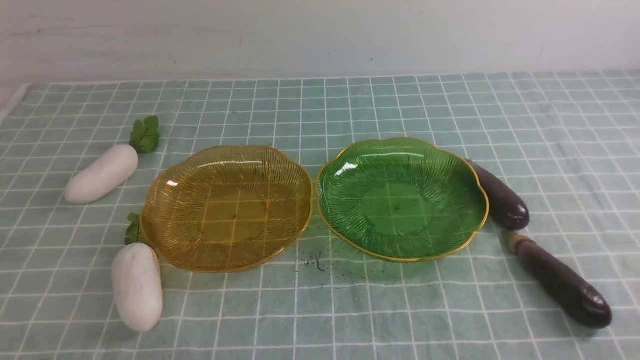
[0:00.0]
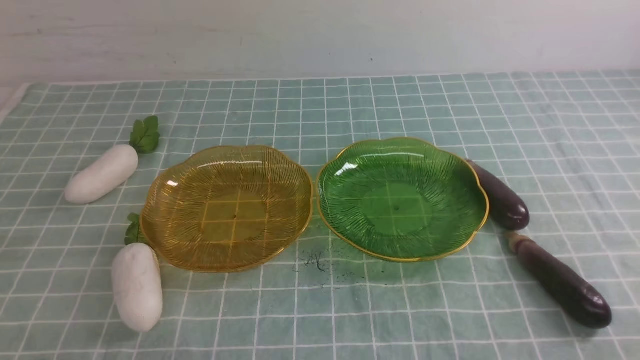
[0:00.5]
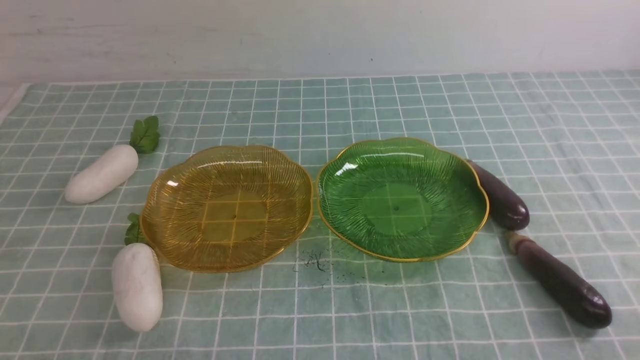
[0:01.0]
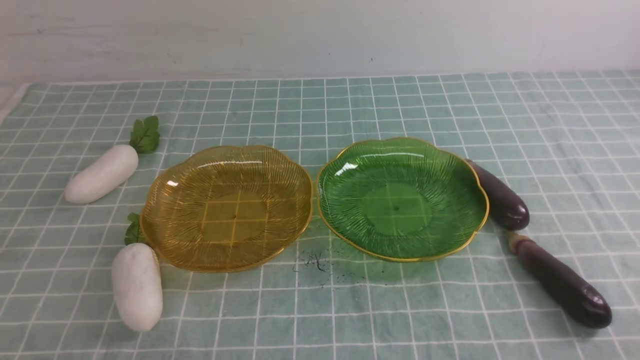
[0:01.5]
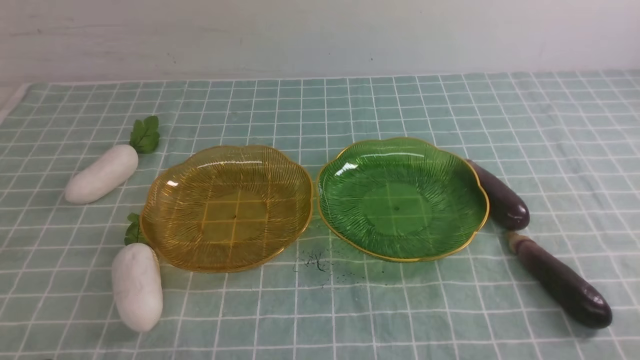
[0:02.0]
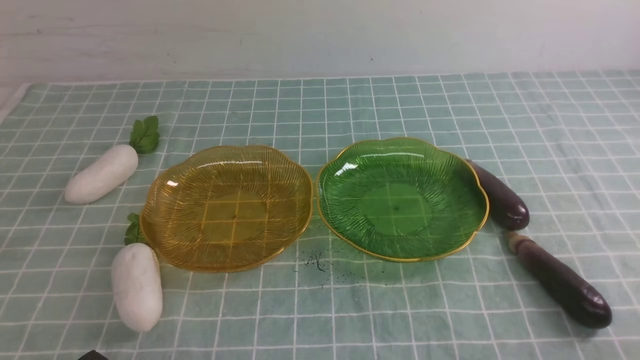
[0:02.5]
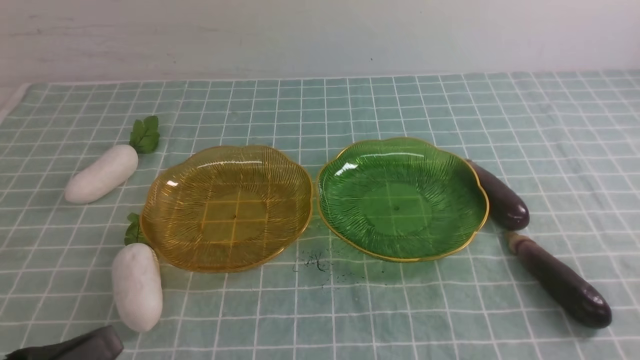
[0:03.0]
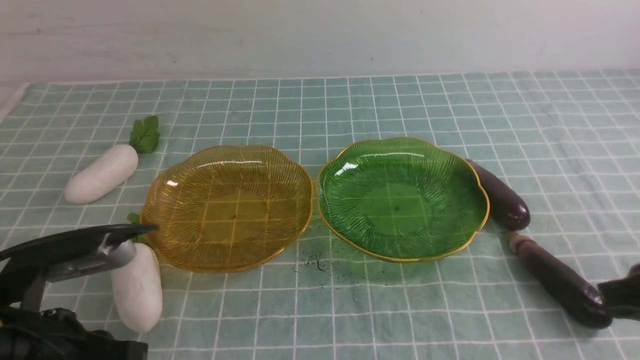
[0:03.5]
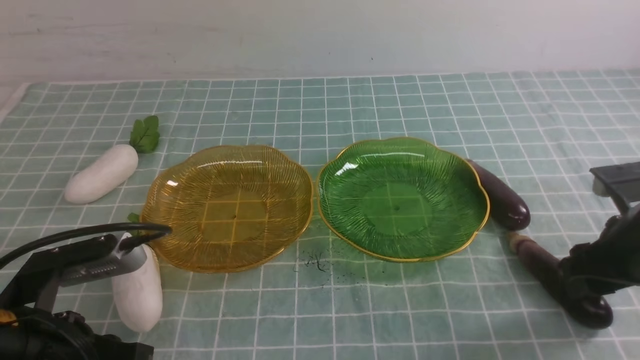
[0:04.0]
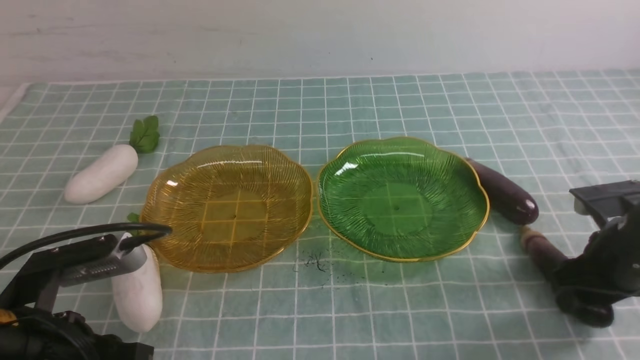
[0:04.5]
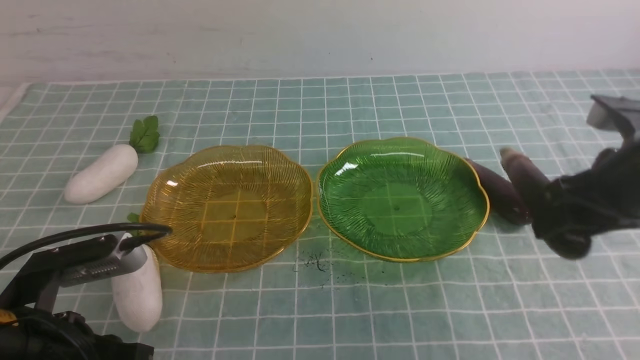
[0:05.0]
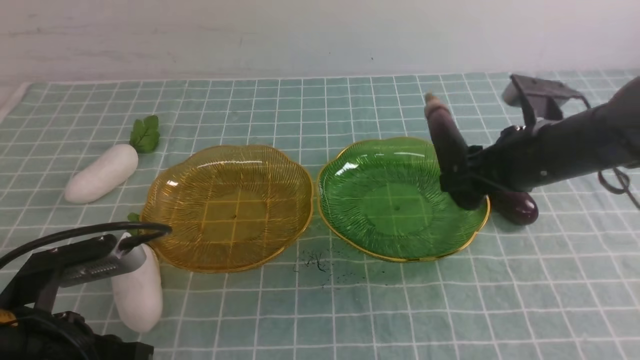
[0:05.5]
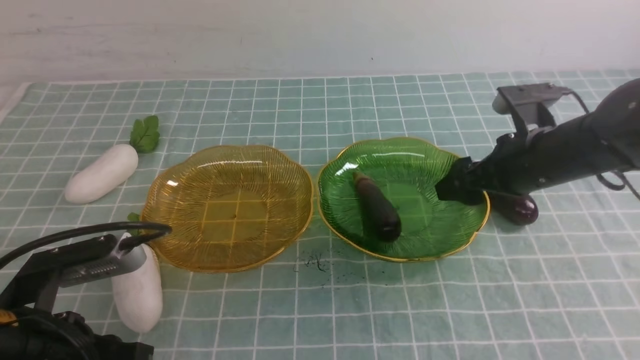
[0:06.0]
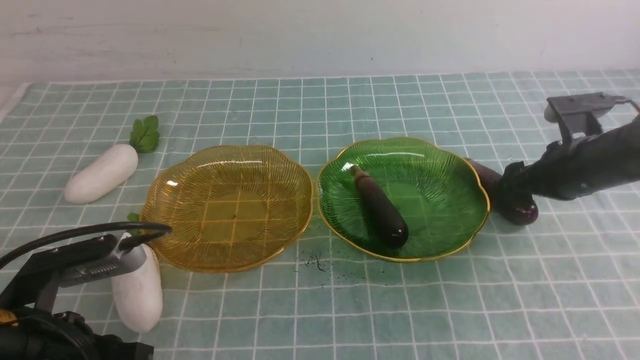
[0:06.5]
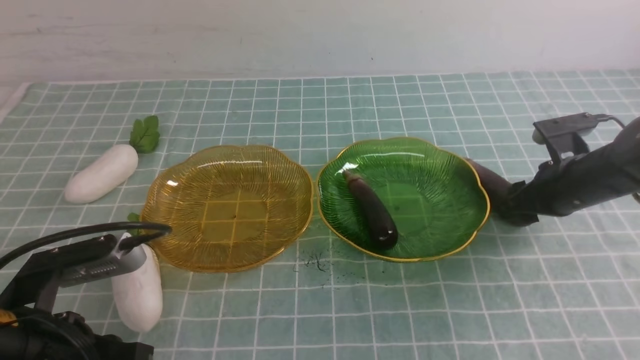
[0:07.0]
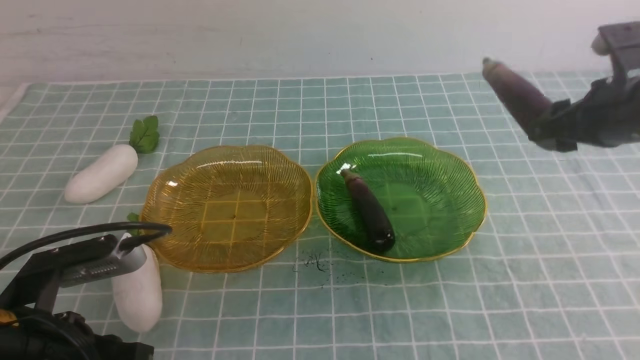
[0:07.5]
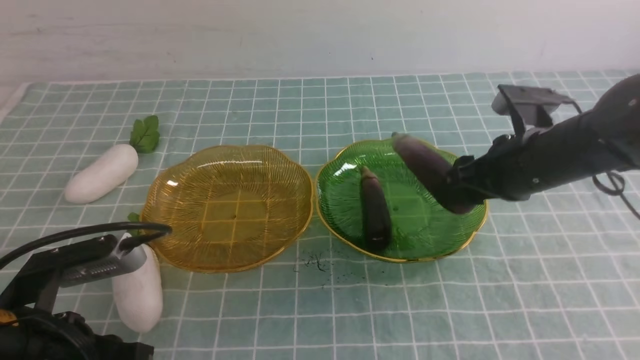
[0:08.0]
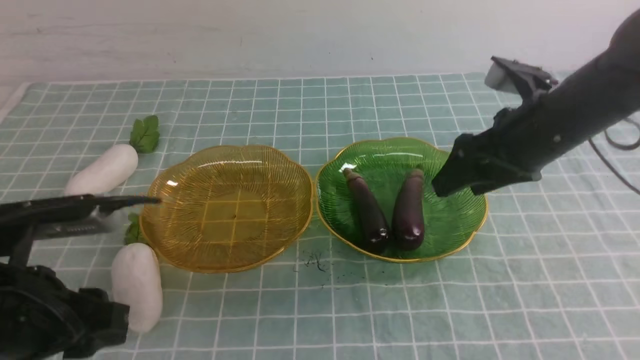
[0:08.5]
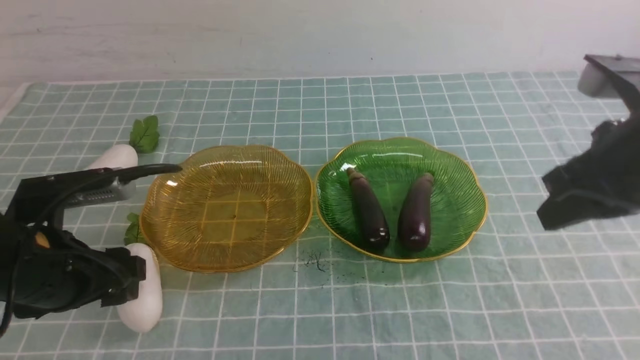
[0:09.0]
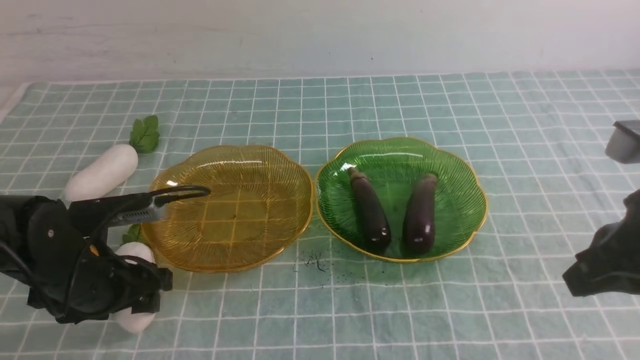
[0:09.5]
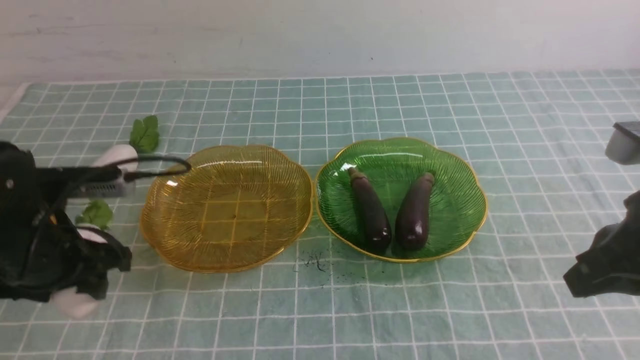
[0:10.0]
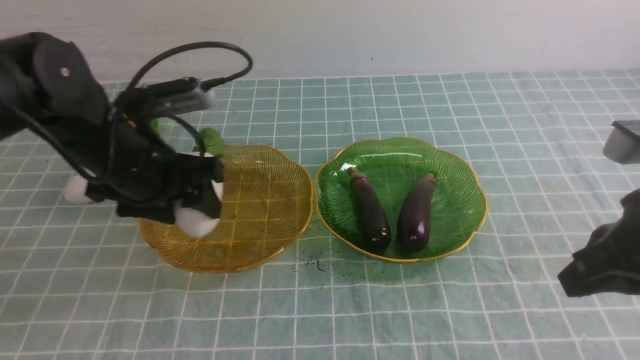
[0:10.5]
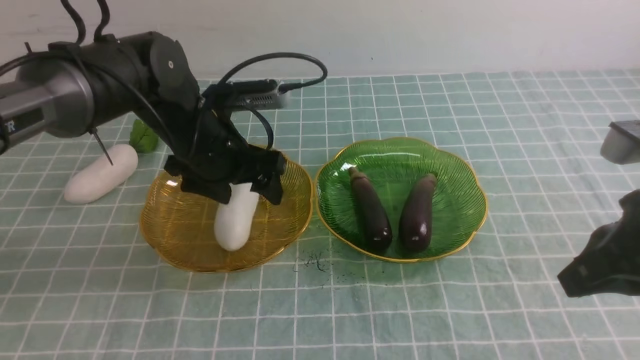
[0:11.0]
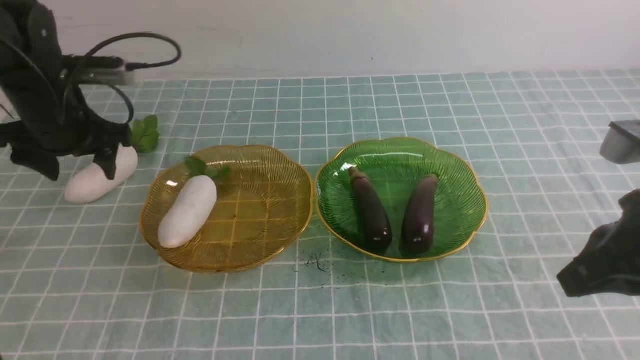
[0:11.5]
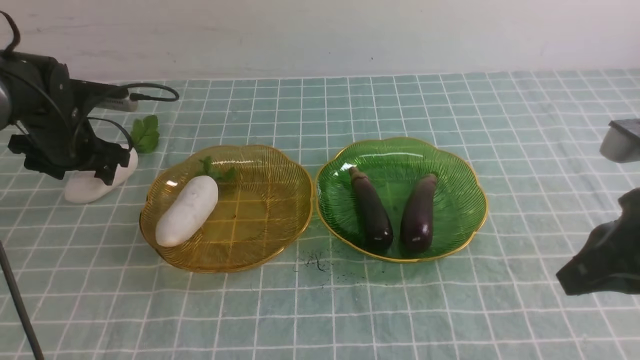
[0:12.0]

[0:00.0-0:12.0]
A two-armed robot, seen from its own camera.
Step, 0:00.0 to 0:08.0: use the right arm to grab an eggplant and put it into the right plate.
0:02.0 to 0:04.0: The left gripper heads forward and upward, covering roughly 10 cm. The right gripper shifts approximately 20 cm forward, and opens.
0:04.0 to 0:06.0: The right gripper heads forward and to the left, covering some 10 cm, and opens up.
0:06.0 to 0:08.0: The right gripper moves about 5 cm downward and comes back.
0:08.0 to 0:10.0: The right gripper travels backward and upward by some 15 cm, and closes up; the left gripper moves forward, roughly 10 cm, and opens its fingers.
0:10.0 to 0:12.0: The left gripper heads forward and to the left, covering roughly 20 cm.

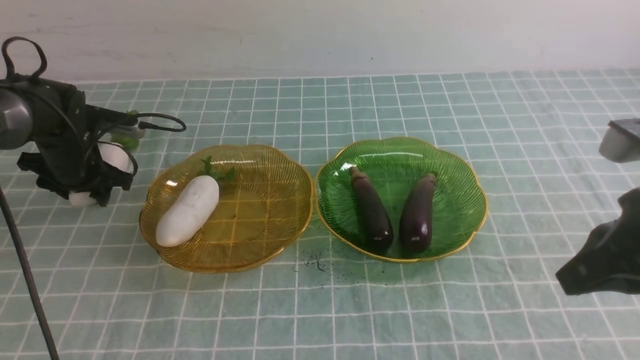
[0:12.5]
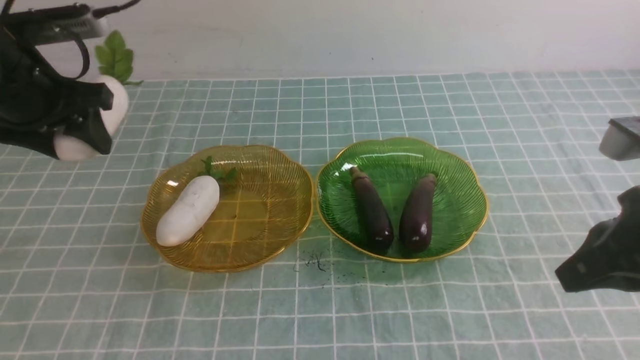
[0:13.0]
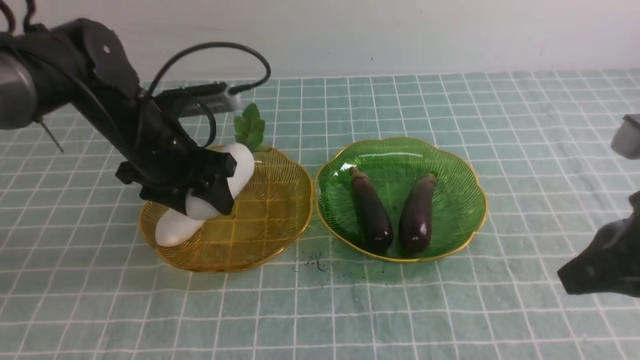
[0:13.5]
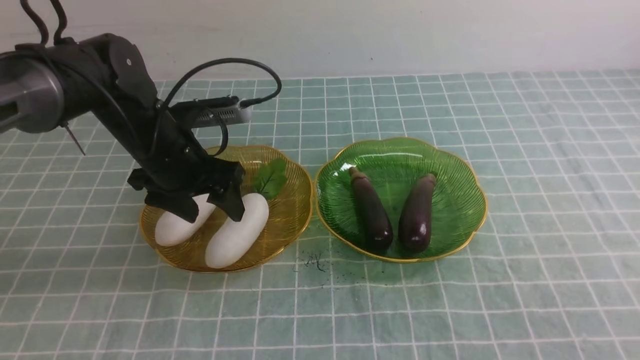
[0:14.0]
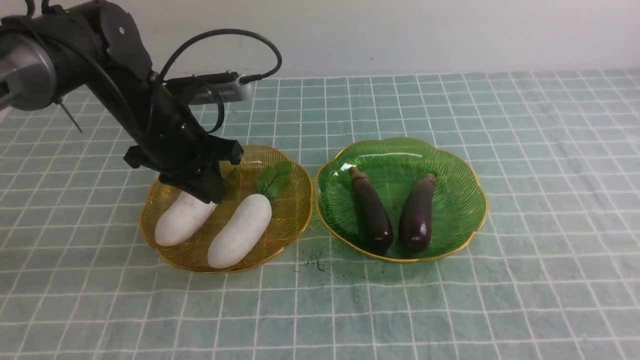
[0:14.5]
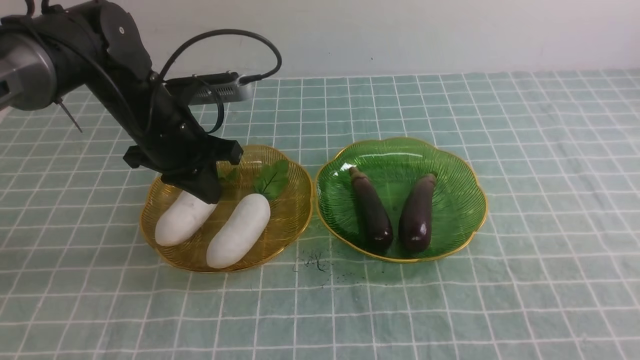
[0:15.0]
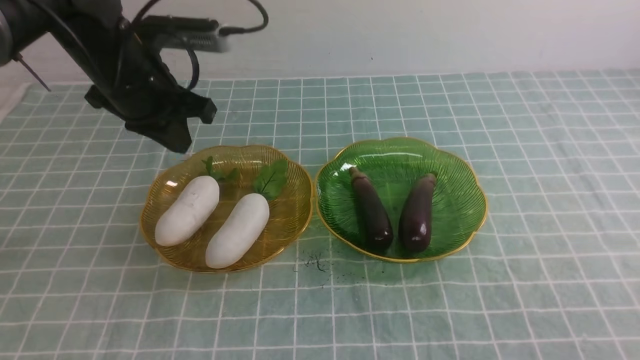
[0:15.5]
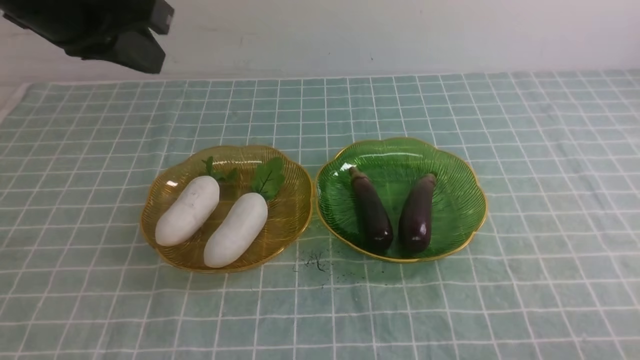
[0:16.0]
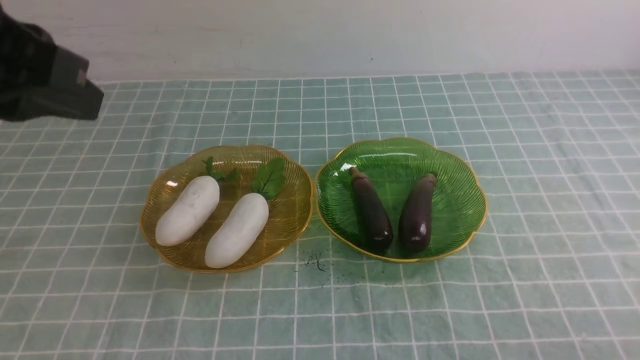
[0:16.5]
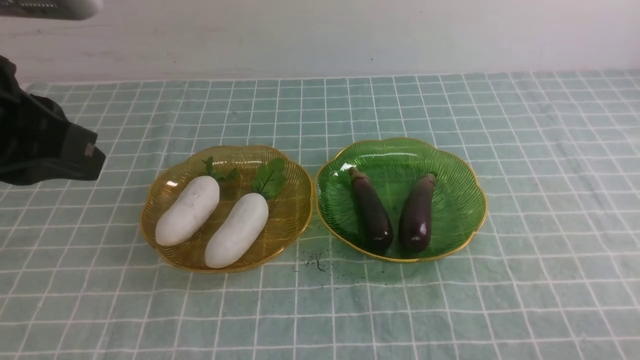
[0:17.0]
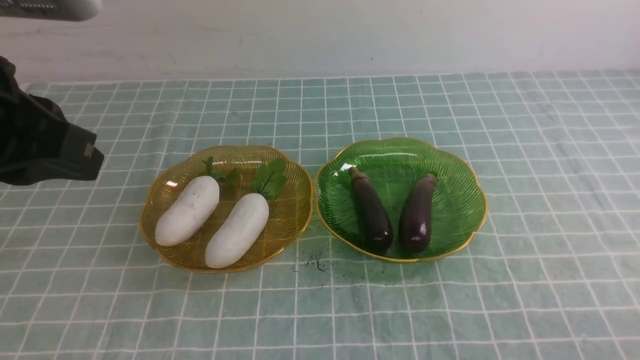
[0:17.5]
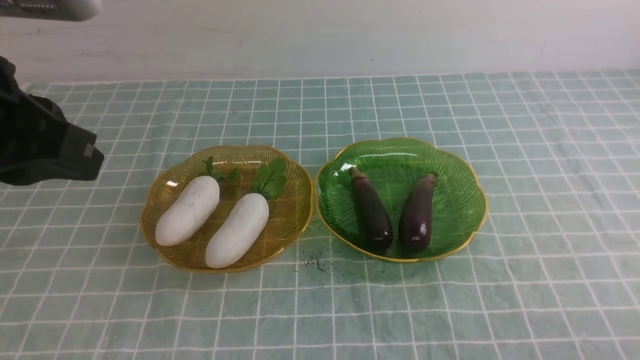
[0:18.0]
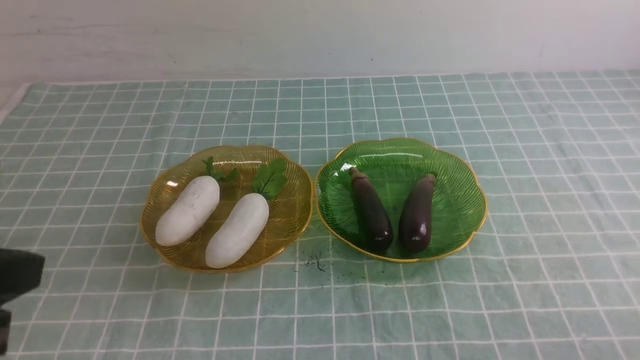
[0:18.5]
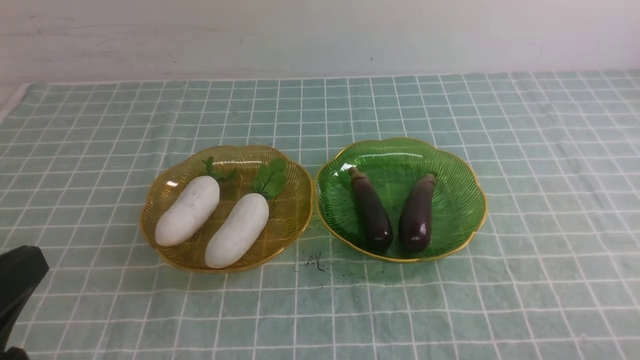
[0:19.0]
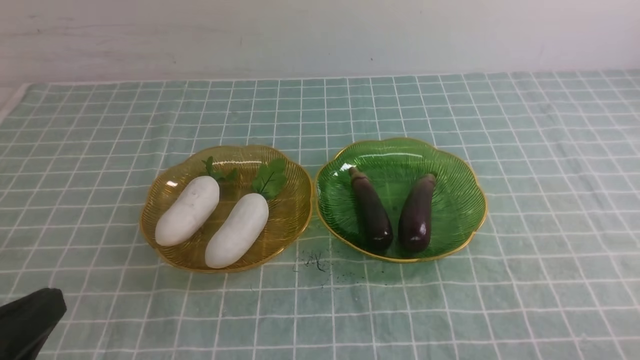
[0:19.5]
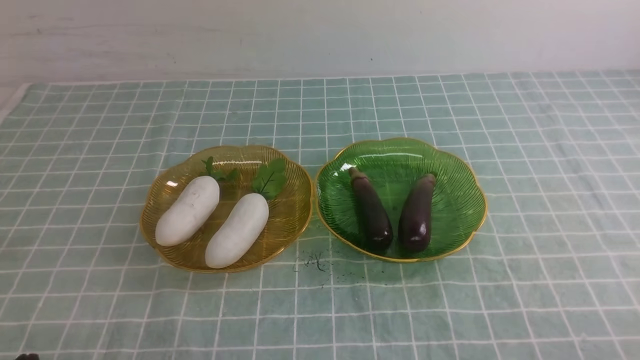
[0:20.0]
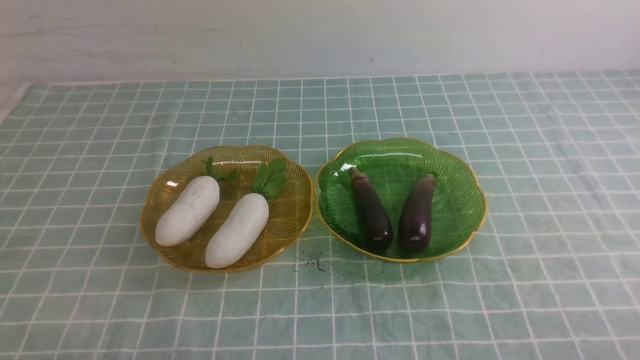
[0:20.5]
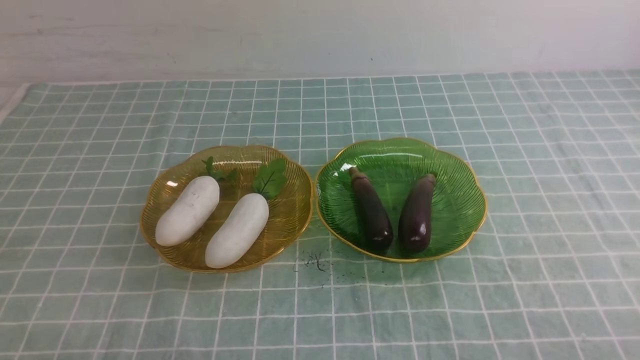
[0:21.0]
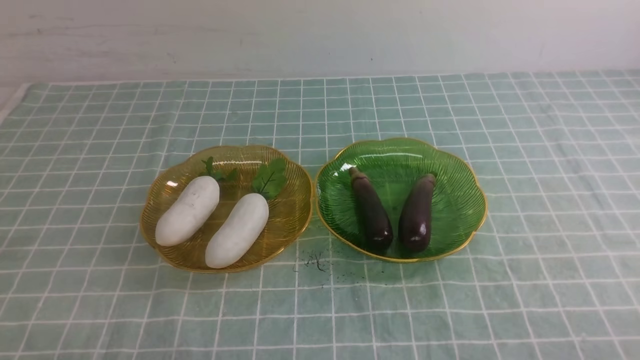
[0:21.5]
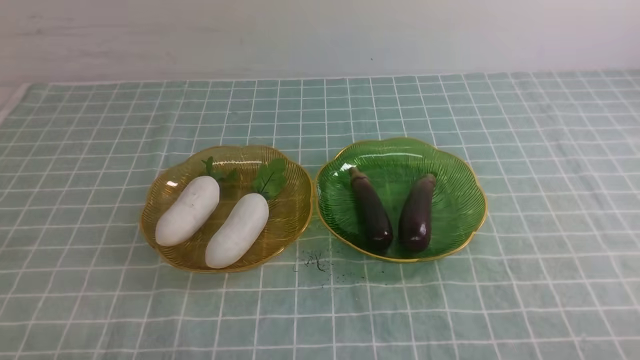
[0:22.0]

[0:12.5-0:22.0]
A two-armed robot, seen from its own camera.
0:12.5 to 0:14.5: The right gripper moves backward, some 15 cm, while the left gripper heads to the right and upward, covering about 15 cm, and closes up.
0:14.5 to 0:16.5: The left gripper moves upward and backward, about 25 cm; the right gripper is displaced downward by some 10 cm.
0:18.0 to 0:20.0: The left gripper travels downward and backward by approximately 25 cm.
0:20.0 to 0:22.0: Both grippers stay about where they are.
